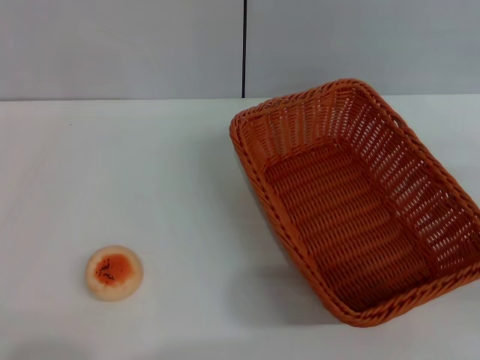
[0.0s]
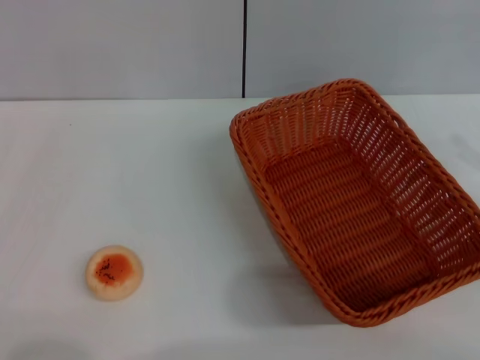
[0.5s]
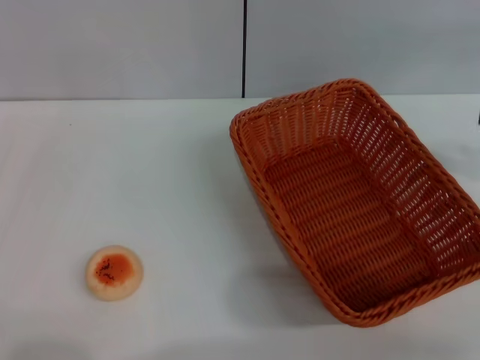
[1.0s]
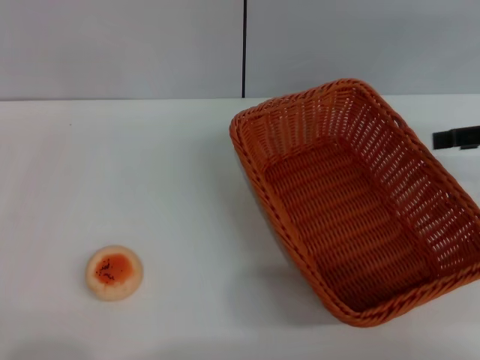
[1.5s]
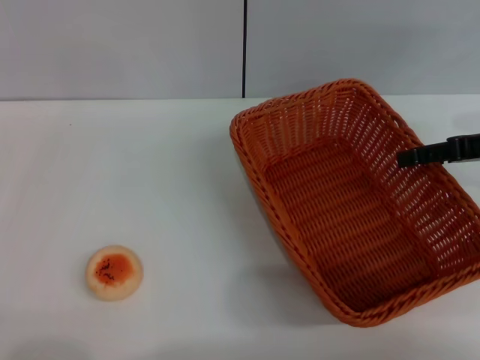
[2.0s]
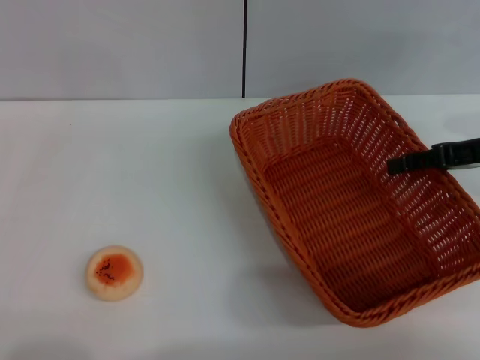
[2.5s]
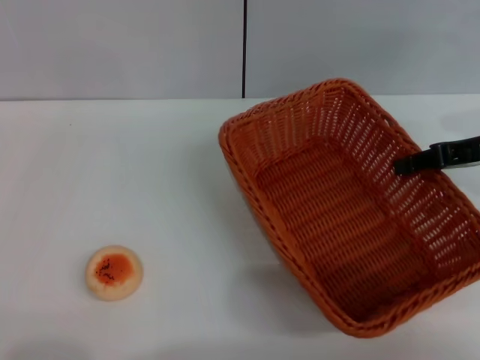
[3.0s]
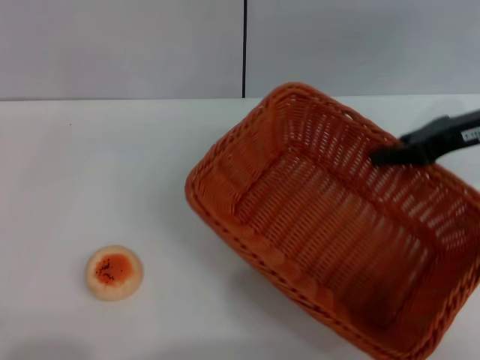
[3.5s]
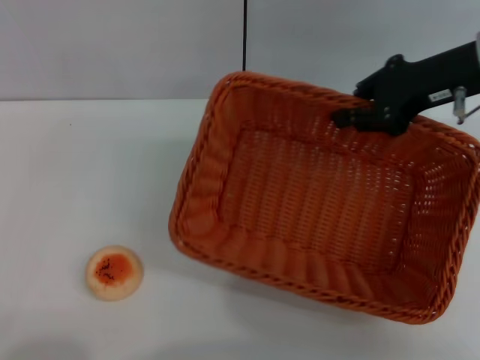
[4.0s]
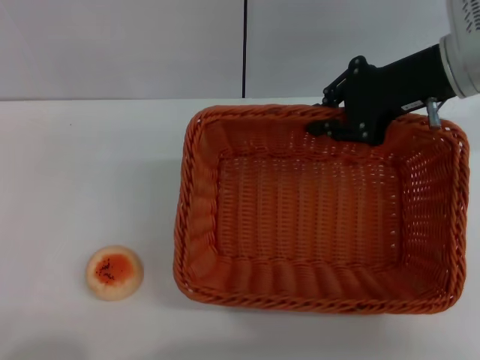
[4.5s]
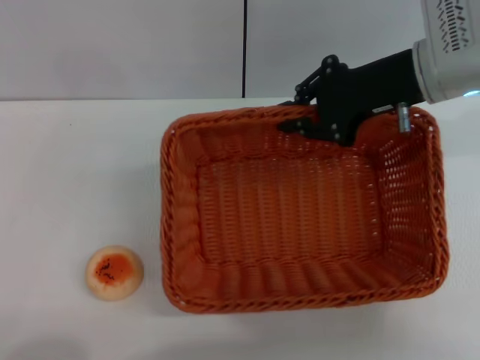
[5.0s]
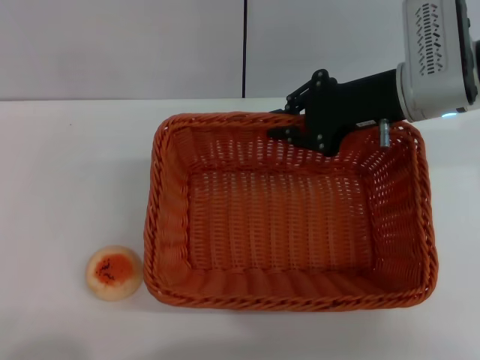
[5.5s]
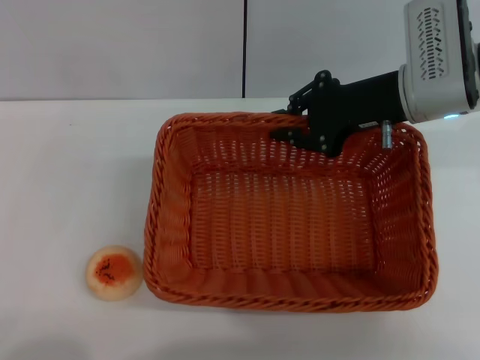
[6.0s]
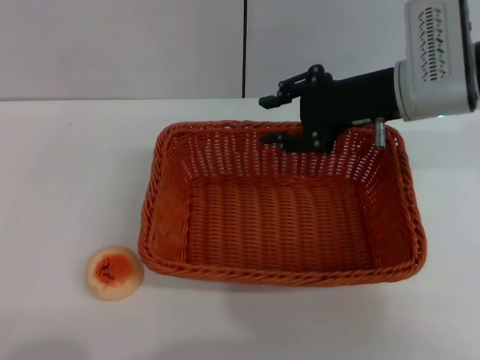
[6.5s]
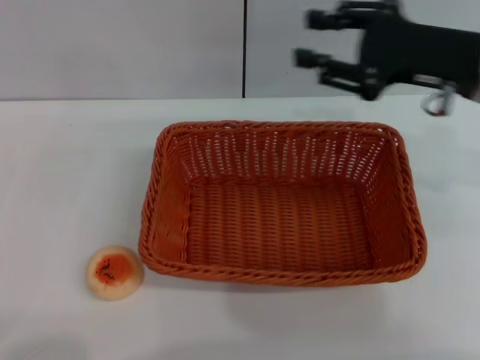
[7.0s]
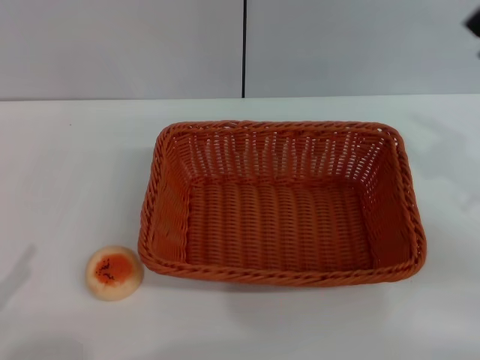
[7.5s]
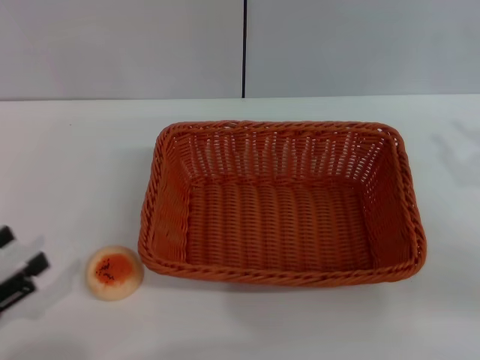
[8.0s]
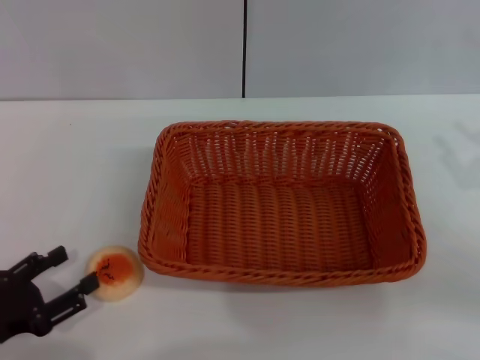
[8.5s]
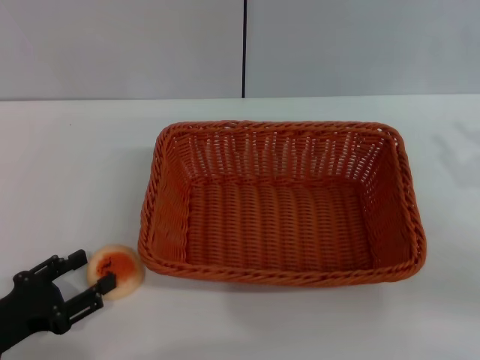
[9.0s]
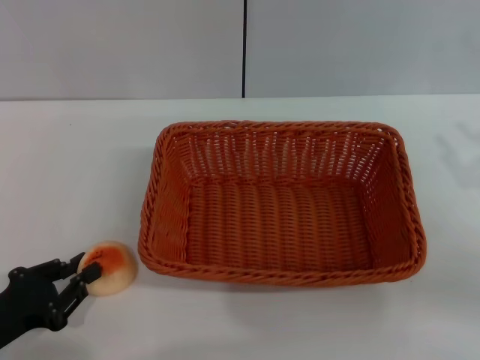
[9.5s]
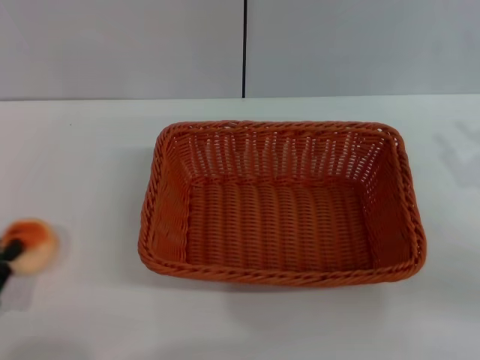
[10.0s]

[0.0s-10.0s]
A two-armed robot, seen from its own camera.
Step, 0.0s to 6.5s: Move the basket to the center of view with the right gripper.
Step, 7.0s to 9.5s: Pick up the egg yolk pastry with the left gripper.
0.0s to 2.0s: The right gripper moves forward, to the left and upward, some 15 cm.
2.0s to 4.0s: The right gripper shifts about 10 cm to the left and upward, and closes.
4.0s to 6.0s: The right gripper goes some 5 cm to the left.
6.0s to 8.0s: The left gripper heads forward, covering about 10 cm, while the right gripper shifts roughly 20 cm to the right and backward, and opens.
8.0s to 10.0s: The left gripper closes.

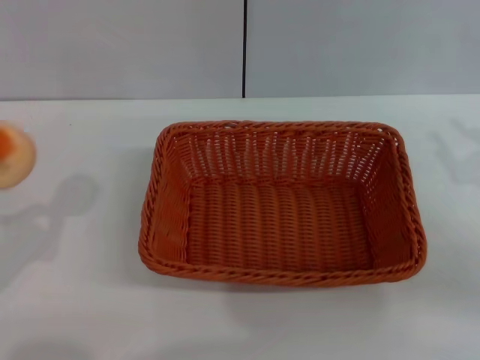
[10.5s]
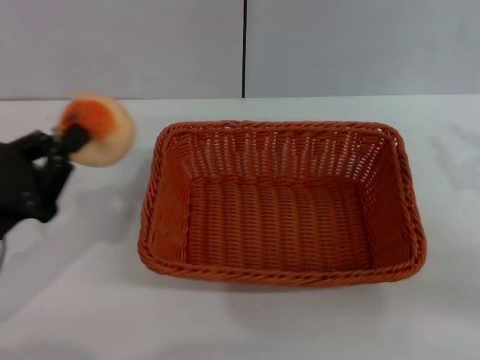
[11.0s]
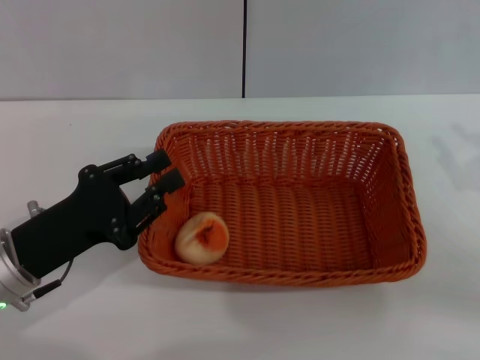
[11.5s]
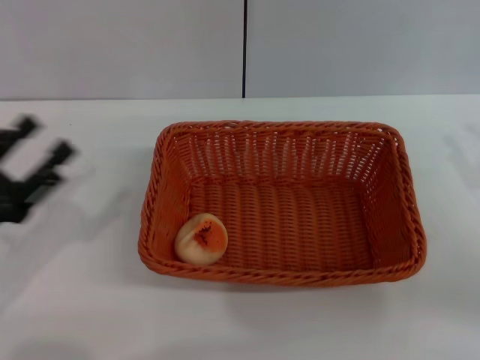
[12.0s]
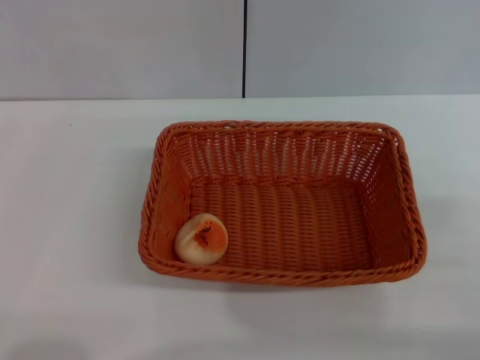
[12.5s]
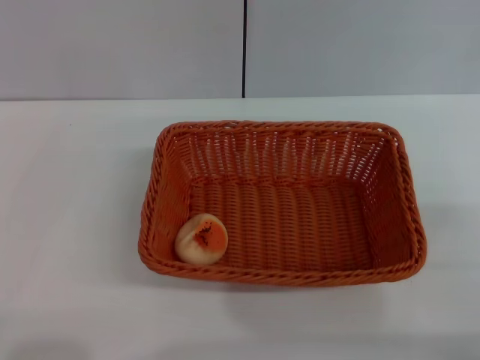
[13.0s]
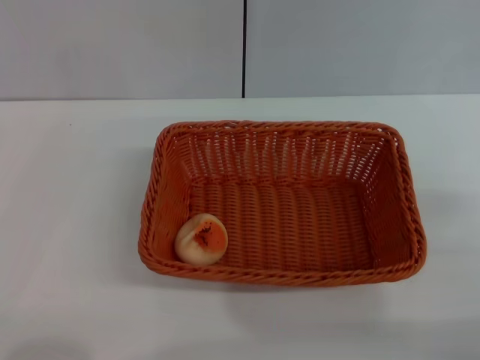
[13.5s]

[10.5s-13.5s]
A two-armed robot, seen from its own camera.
Step, 10.5s to 11.5s: Place the egg yolk pastry into the basket with the left gripper.
10.5s to 12.0s: The left gripper opens.
12.0s to 13.5s: The left gripper shifts about 10 cm backward and to the left. Meanwhile the right gripper opens its fingers.

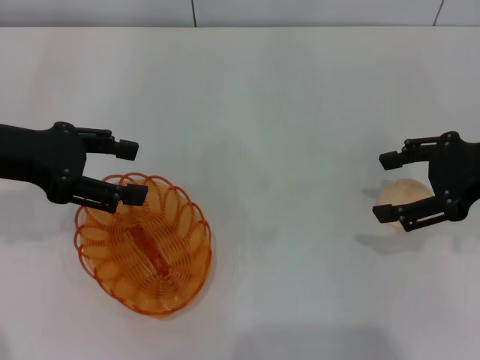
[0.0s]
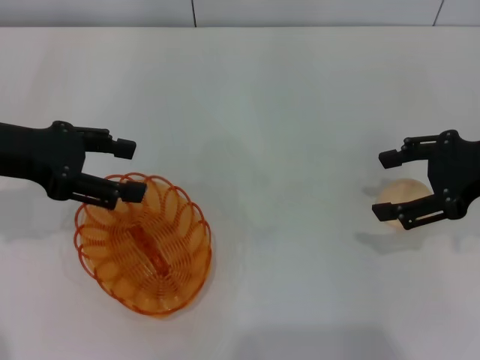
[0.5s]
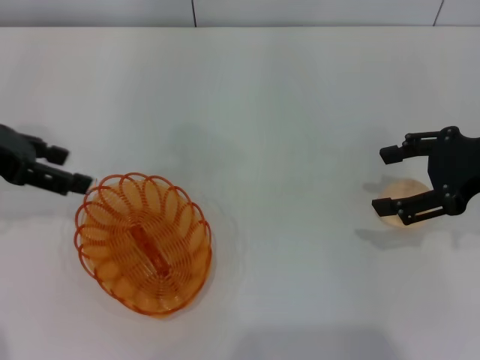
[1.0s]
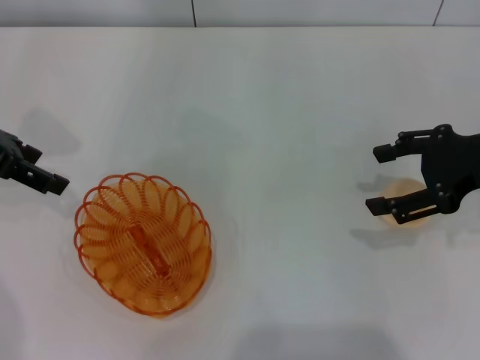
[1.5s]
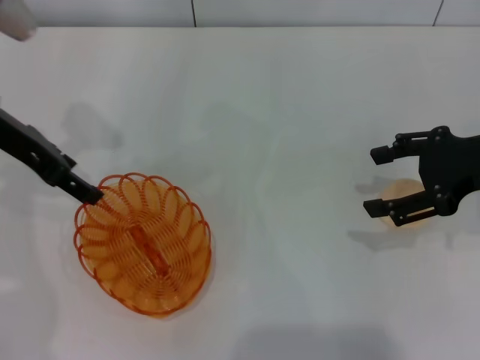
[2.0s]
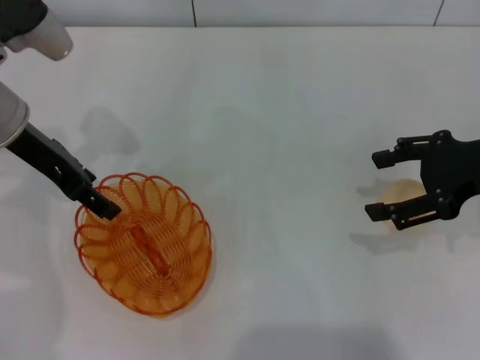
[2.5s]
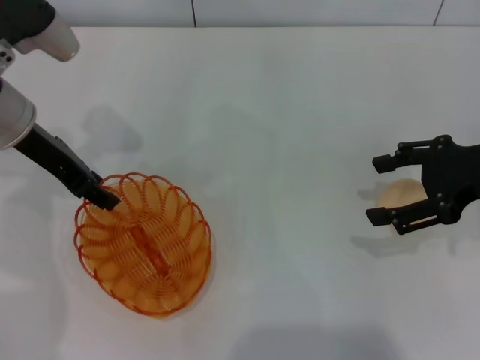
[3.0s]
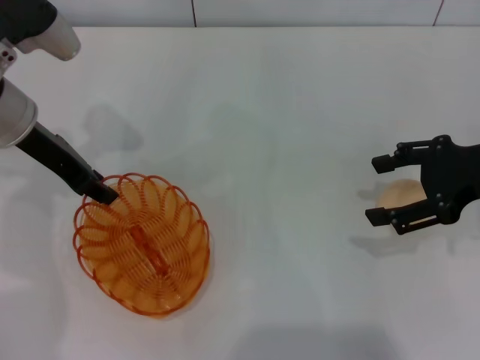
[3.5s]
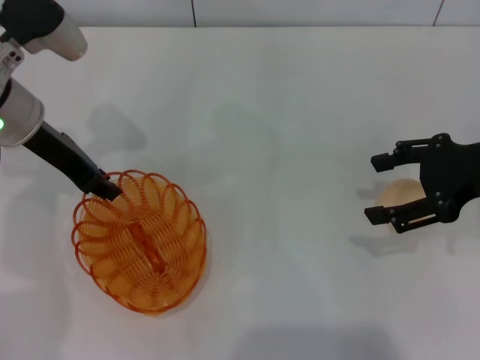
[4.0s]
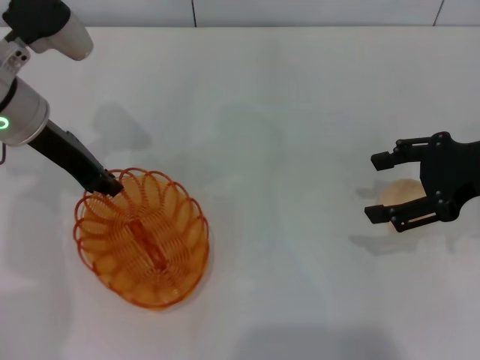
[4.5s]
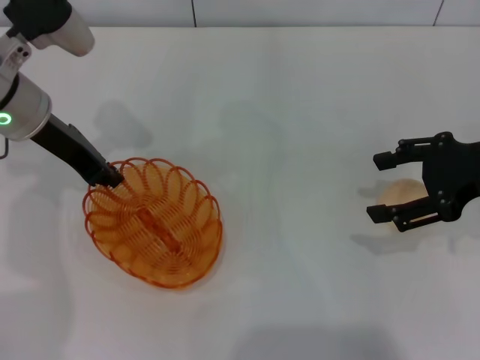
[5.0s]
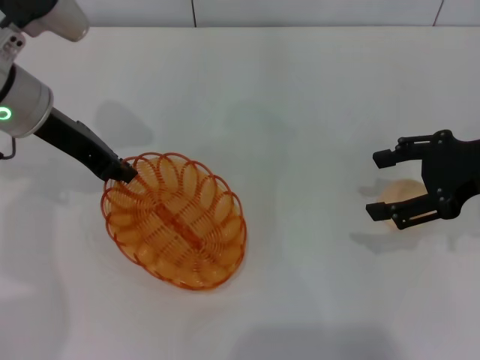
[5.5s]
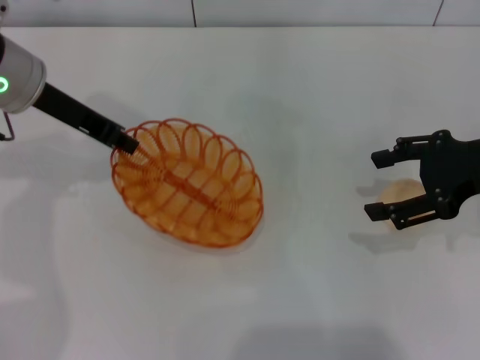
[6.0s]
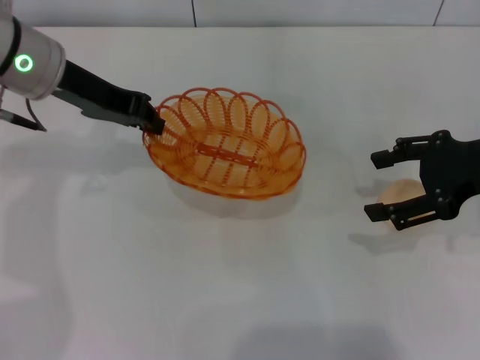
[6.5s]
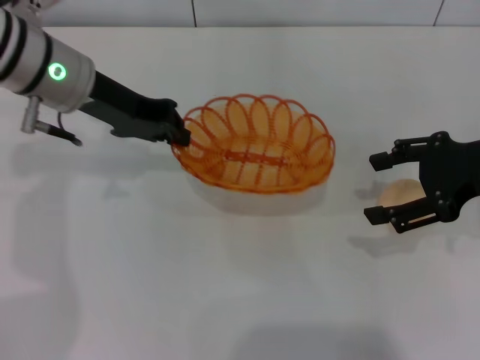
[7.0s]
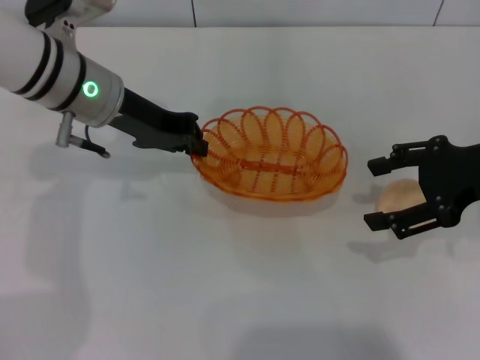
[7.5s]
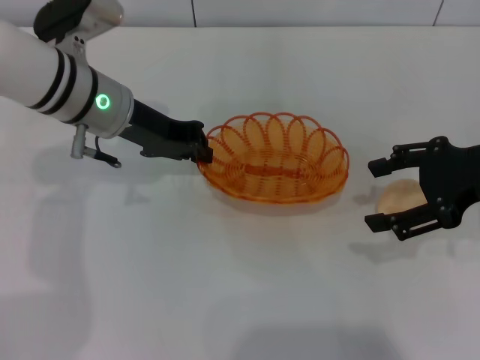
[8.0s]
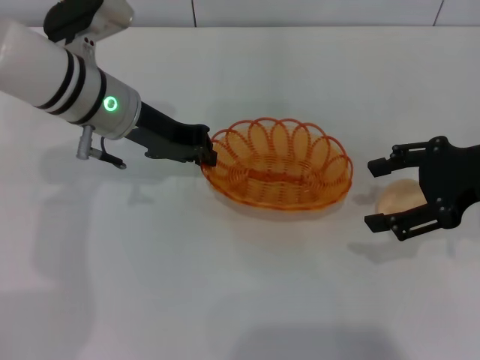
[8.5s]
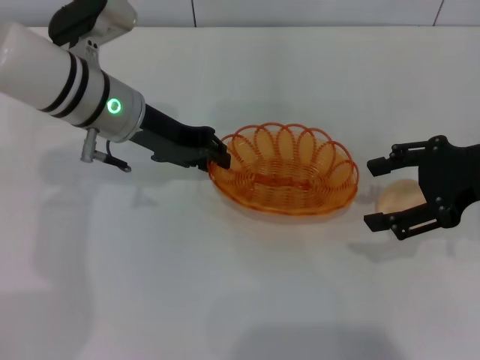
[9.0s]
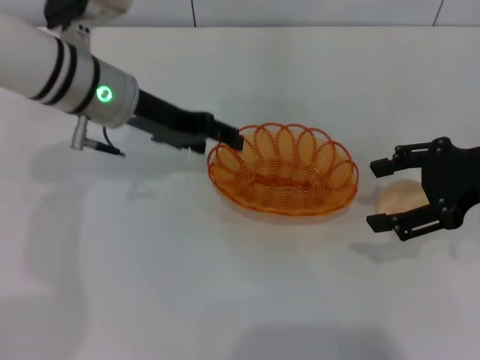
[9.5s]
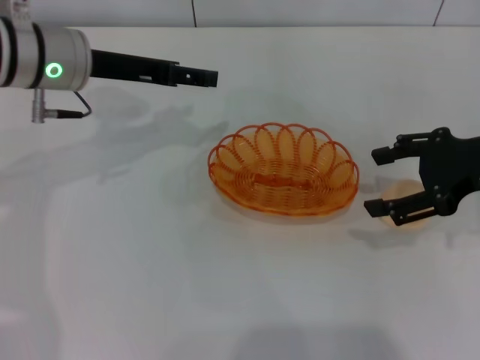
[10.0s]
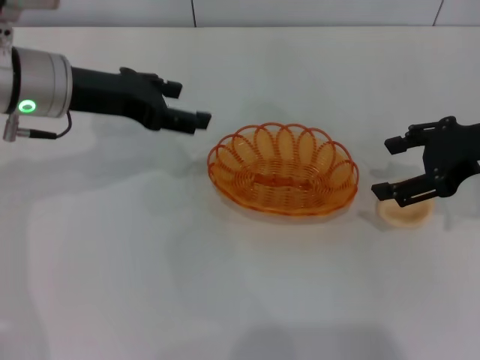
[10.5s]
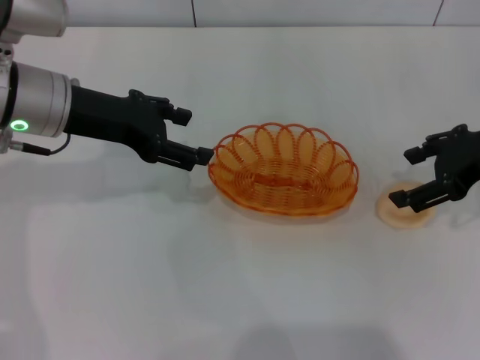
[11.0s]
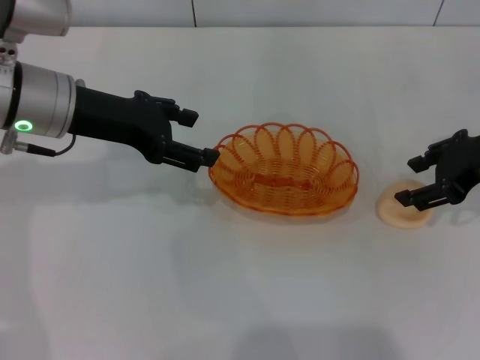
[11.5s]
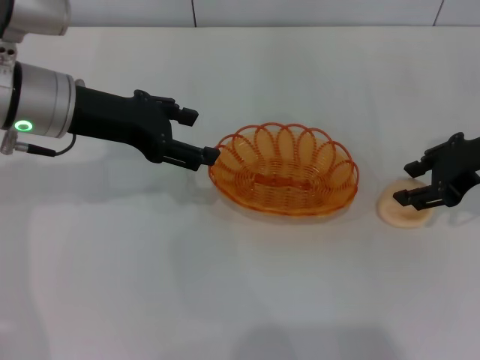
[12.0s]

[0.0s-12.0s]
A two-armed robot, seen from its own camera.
Step, 0.0s to 6.0s: Pick up the basket with the left gripper.
Step, 6.5s to 9.5s: Place the basket in the center of view with the left gripper.
0.0s to 2.0s: The left gripper travels forward by some 5 cm.
2.0s to 4.0s: The left gripper closes up.
6.0s to 8.0s: The left gripper moves to the right and downward, roughly 10 cm.
8.0s to 10.0s: The left gripper opens its fingers.
